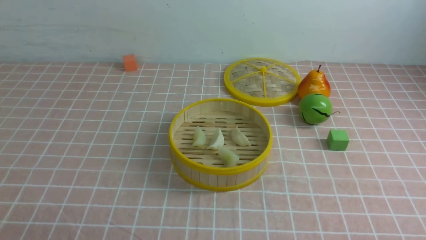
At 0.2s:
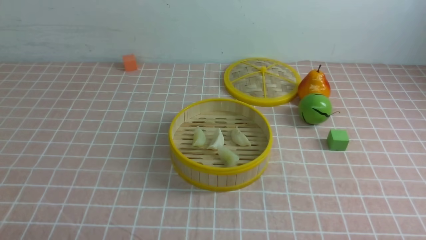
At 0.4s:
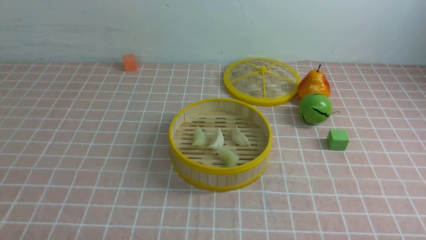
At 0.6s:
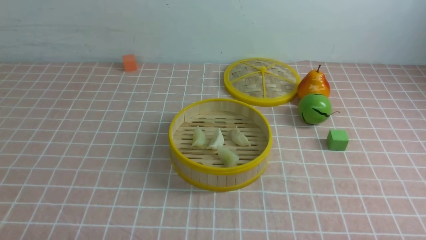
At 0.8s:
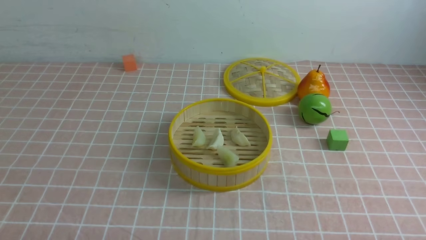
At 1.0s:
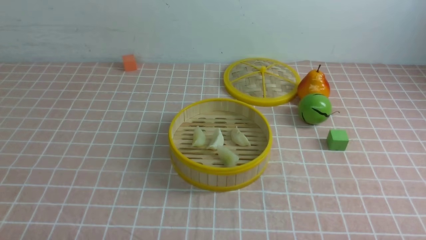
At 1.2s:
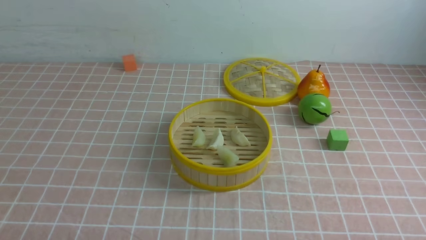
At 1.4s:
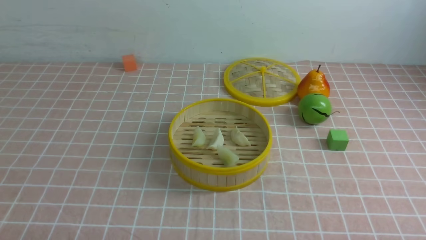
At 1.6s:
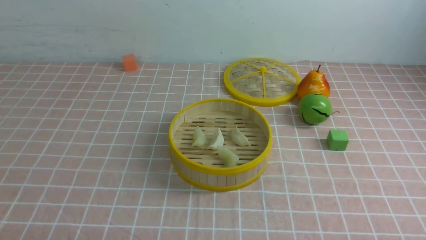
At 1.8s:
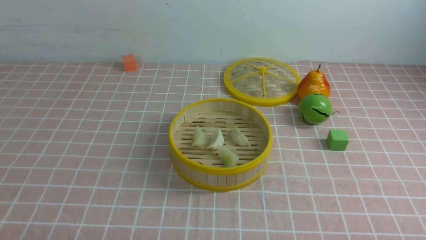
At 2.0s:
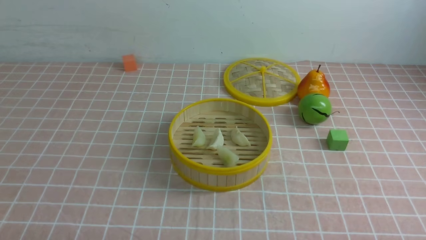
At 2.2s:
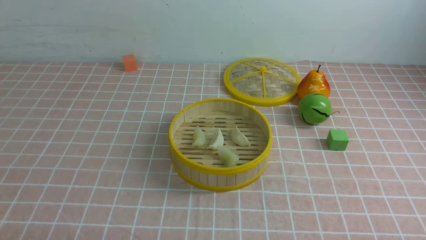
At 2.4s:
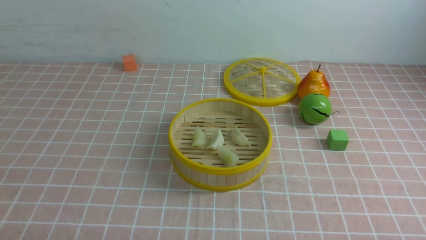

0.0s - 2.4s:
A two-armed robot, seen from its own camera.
Task of the whole recording: put the dumplings into the steamer on the table with the pink tablecloth.
1.2s - 2.4s: Neither gripper changes place.

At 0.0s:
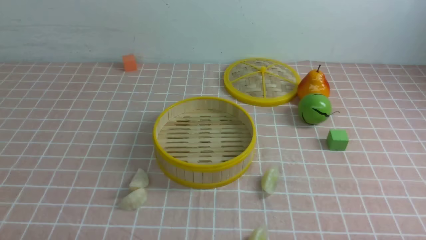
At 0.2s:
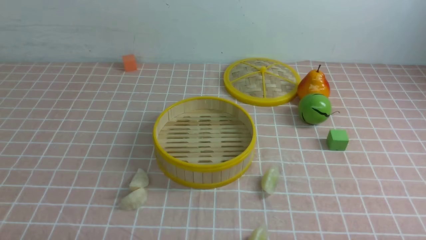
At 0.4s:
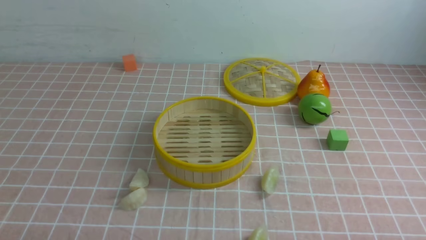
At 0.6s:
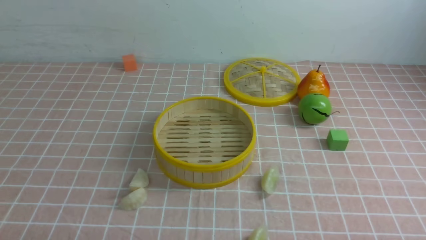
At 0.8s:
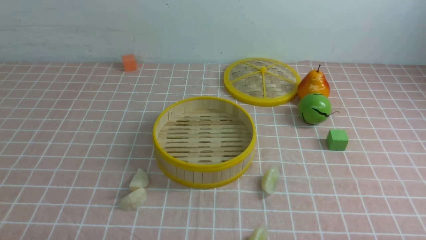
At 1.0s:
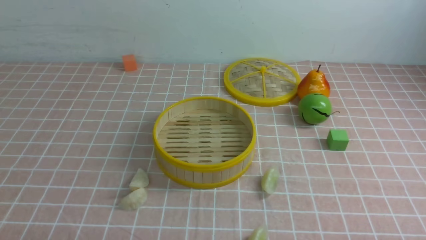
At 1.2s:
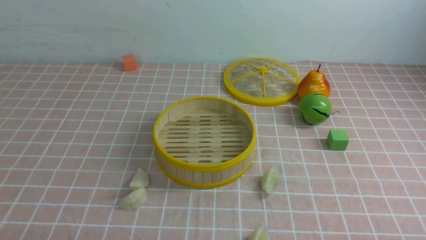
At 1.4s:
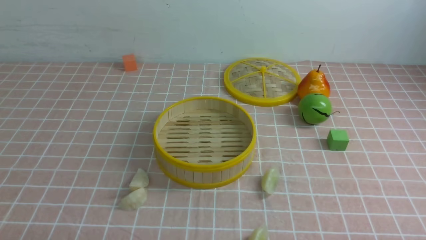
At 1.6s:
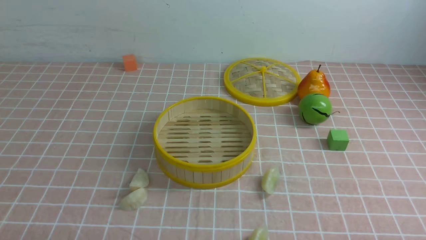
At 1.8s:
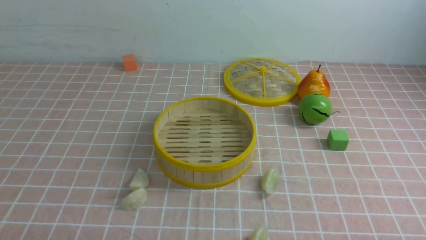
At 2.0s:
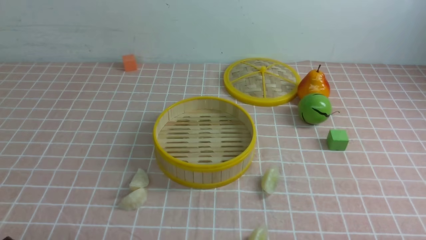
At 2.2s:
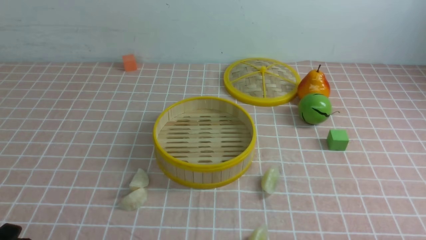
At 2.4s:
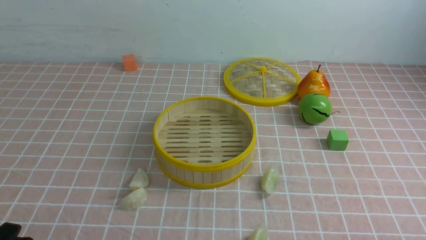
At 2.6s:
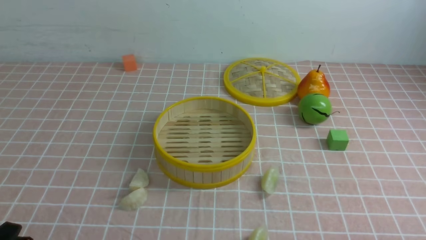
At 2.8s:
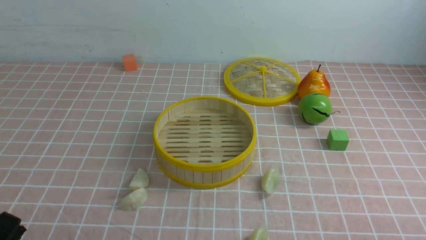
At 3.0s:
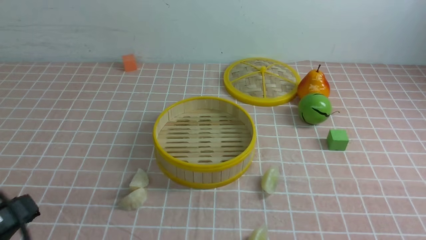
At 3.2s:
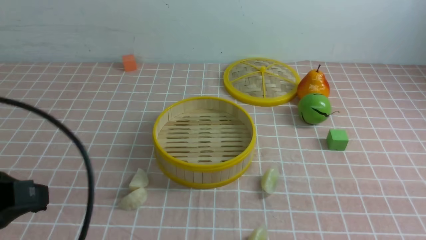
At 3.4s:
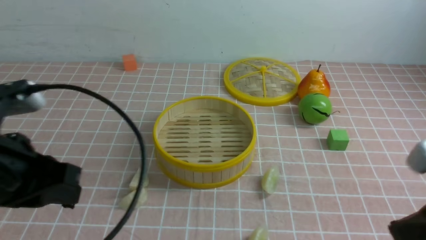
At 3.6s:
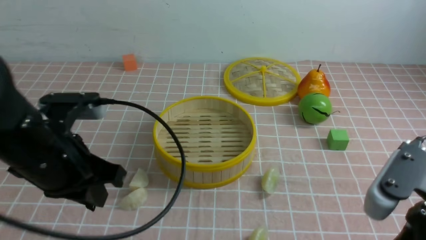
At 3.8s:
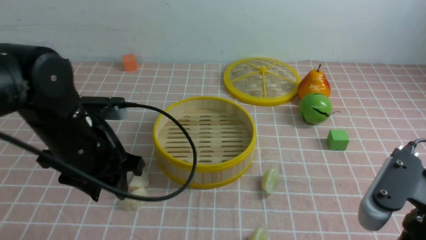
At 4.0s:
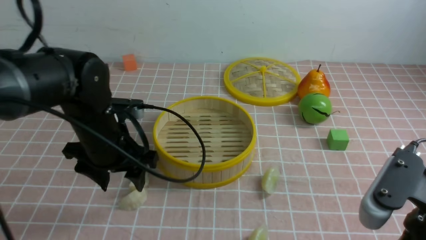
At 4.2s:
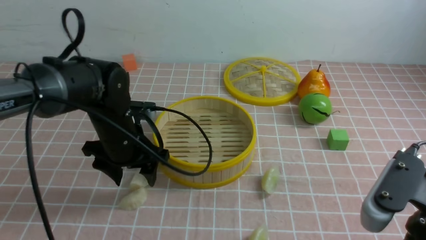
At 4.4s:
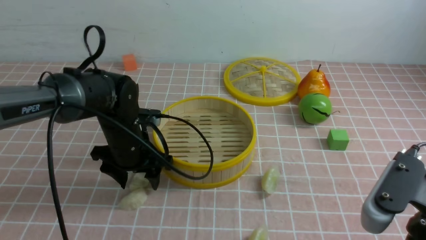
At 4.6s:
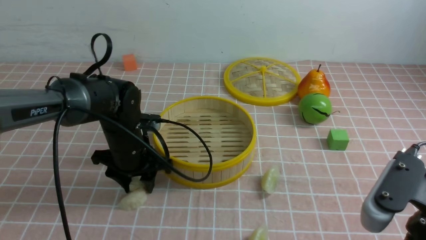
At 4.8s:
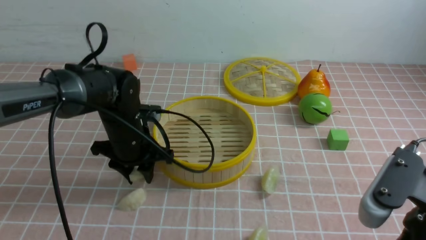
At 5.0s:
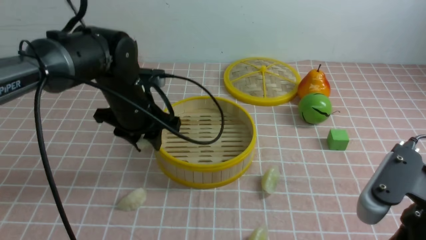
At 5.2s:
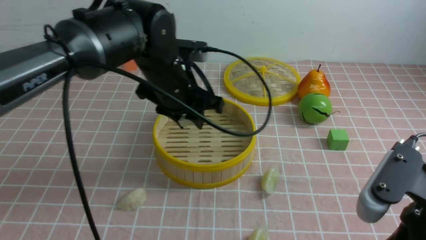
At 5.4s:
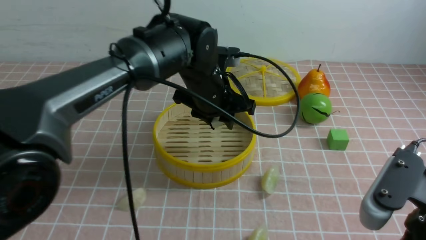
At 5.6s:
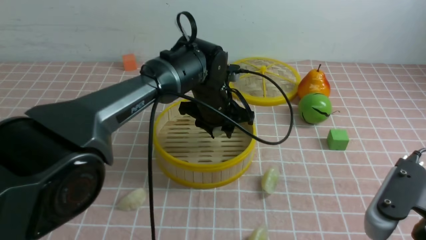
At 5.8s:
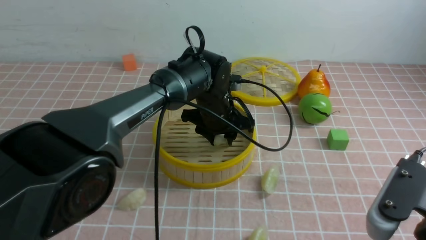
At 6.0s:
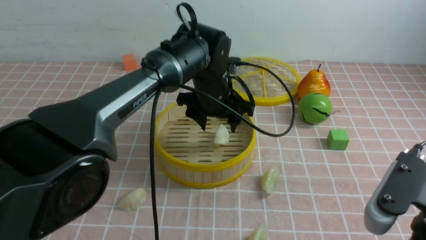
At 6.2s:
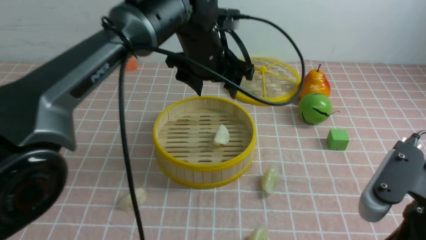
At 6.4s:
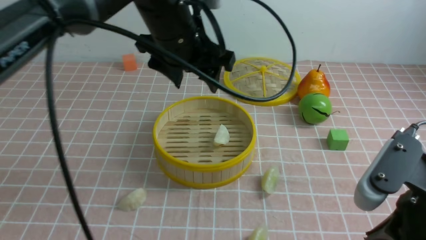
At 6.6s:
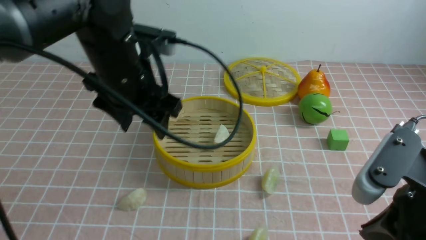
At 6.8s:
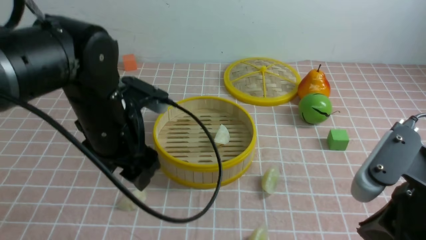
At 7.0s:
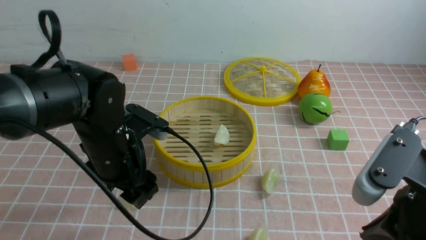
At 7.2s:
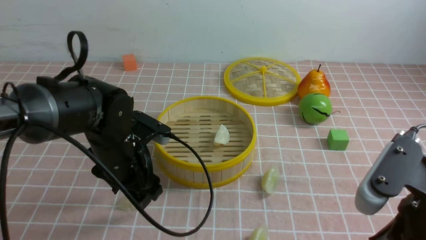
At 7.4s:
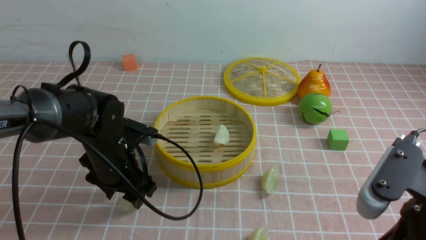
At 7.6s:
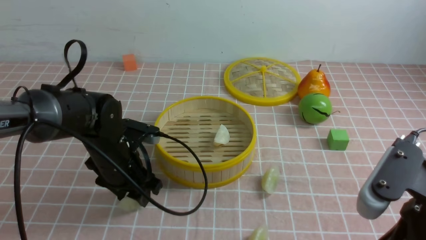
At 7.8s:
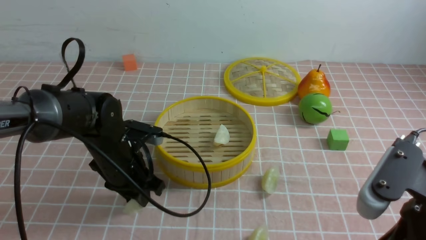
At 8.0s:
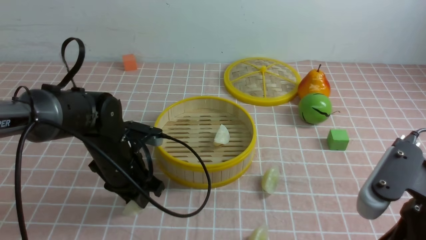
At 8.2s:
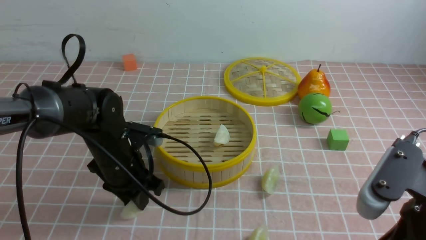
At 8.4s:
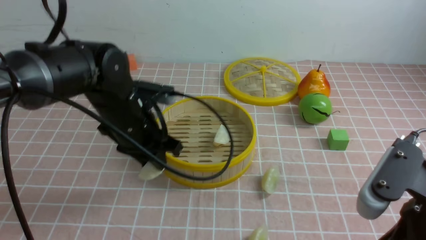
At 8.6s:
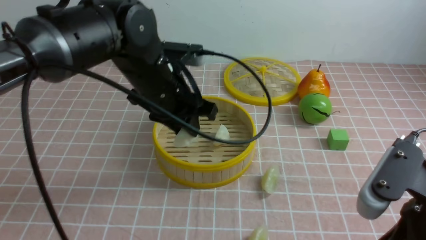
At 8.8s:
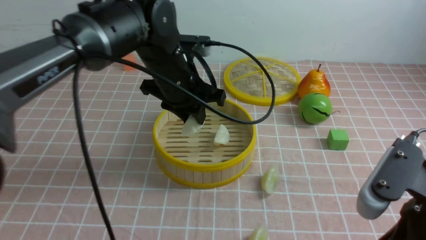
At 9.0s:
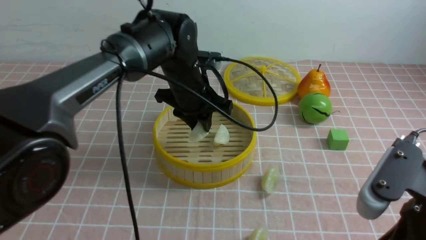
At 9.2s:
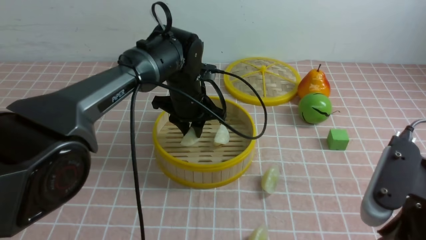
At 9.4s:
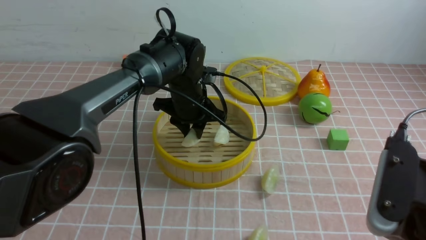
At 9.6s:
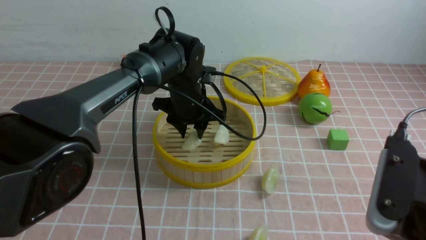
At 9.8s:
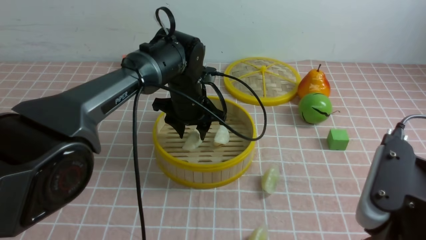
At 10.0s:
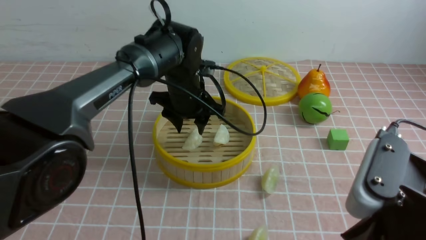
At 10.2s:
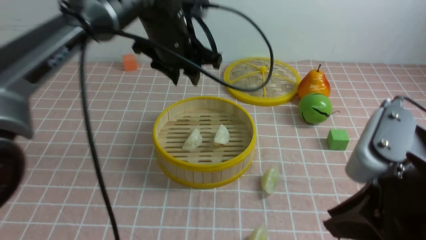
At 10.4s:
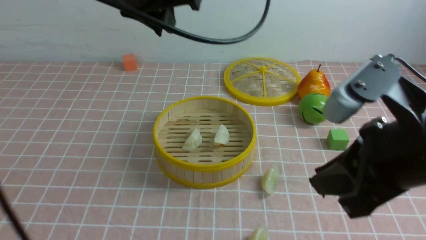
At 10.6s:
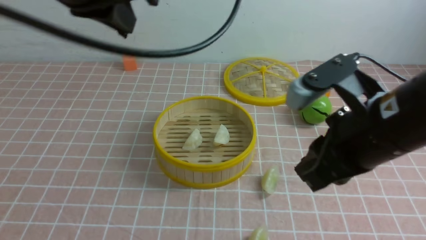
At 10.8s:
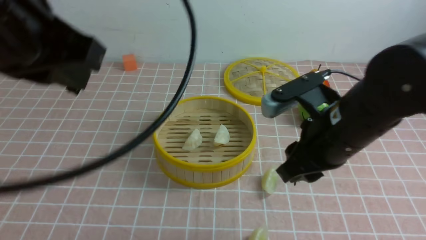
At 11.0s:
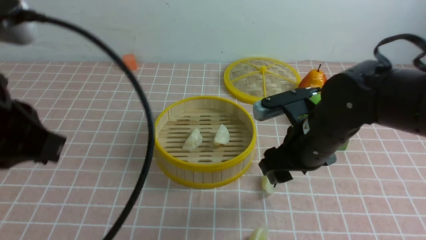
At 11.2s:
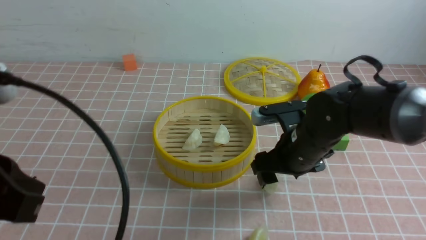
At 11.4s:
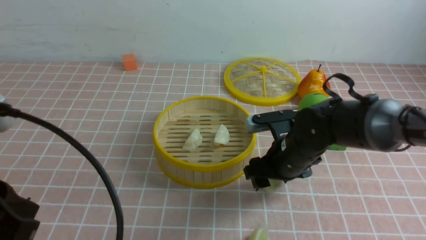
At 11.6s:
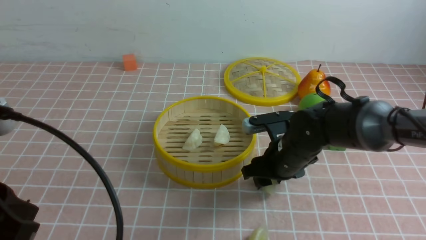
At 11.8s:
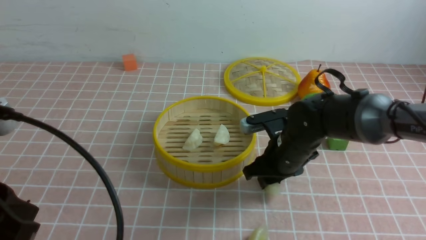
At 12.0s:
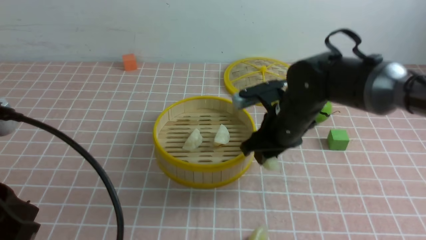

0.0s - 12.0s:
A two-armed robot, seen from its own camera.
Task of the whole recording: put the dumplings into the steamer on the table with the pink tablecloth.
Step, 0.0s - 4.8s: use the left arm to grab a dumpling.
Step, 5.0s - 5.8s: use the left arm to put the dumpling into the steamer.
Step, 6.0s - 8.2s: use the left arm to grab a dumpling.
Step, 8.4s - 10.0s: use the left arm to put the dumpling into the steamer.
Step, 10.2s - 11.8s: use the right arm to grab a dumpling.
0.0s - 1.6s: The two grippers keep their place.
1.6s - 3.0s: The left gripper heads upward, covering roughly 10 cm, and closes its fingers.
3.0s - 4.4s: The right gripper heads to the left and forward, covering about 10 cm. Meanwhile the left gripper moves forward, about 30 cm, and opens its fingers.
4.4s - 6.0s: The left gripper goes roughly 15 cm to the right, upward and forward, and closes, then opens again.
6.0s - 7.6s: The left gripper goes roughly 20 cm to the left, downward and backward.
7.6s - 9.0s: The left gripper moves to the right, forward and upward, roughly 15 cm.
9.0s - 10.4s: The left gripper goes about 20 cm upward and backward. The right gripper is displaced upward by about 5 cm.
10.4s - 12.0s: The right gripper moves forward, downward and to the left, roughly 25 cm, and opens, then closes once more; the left gripper heads backward, to the left and downward, covering about 25 cm.

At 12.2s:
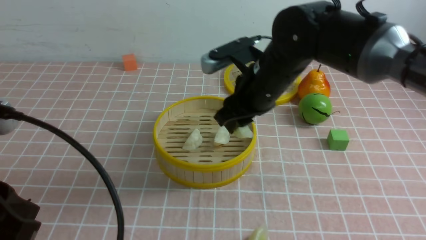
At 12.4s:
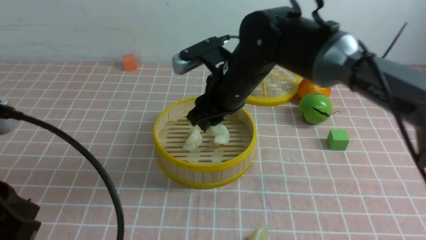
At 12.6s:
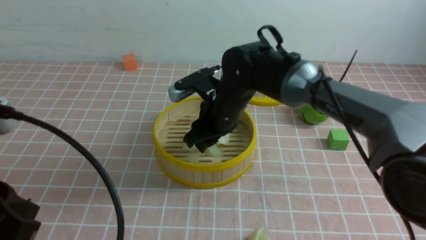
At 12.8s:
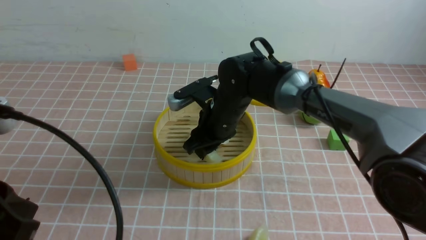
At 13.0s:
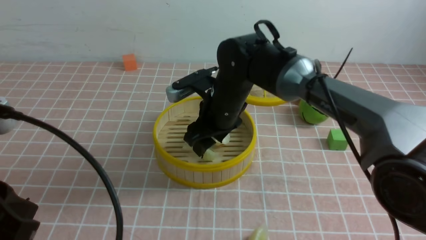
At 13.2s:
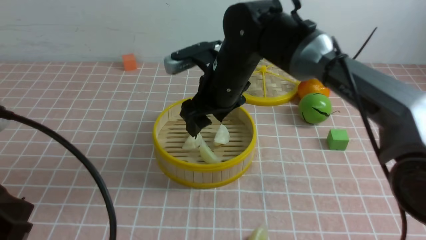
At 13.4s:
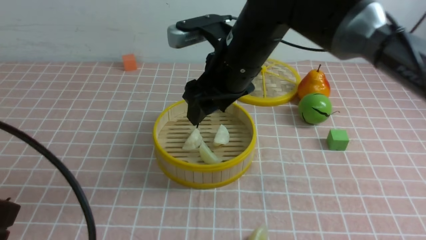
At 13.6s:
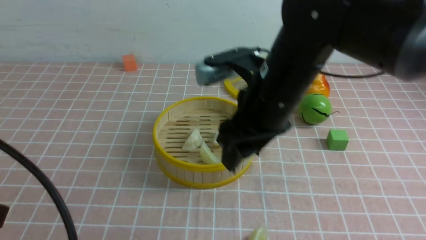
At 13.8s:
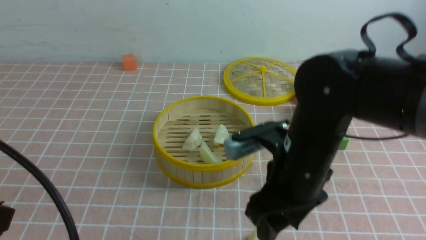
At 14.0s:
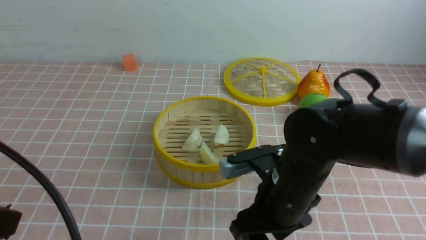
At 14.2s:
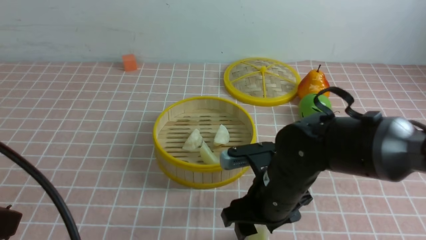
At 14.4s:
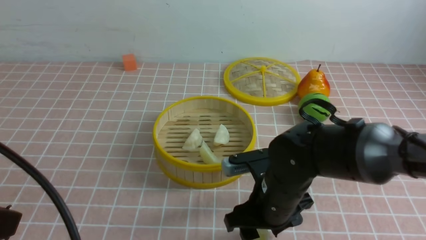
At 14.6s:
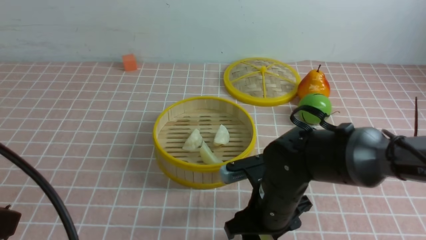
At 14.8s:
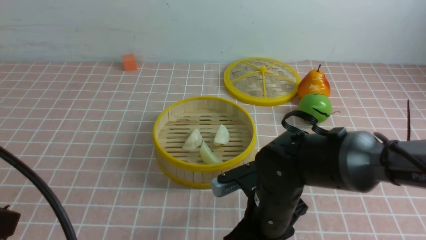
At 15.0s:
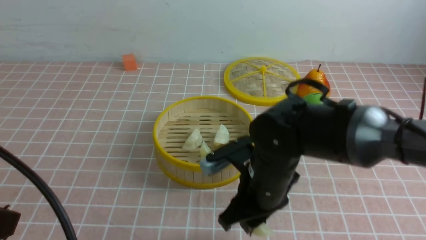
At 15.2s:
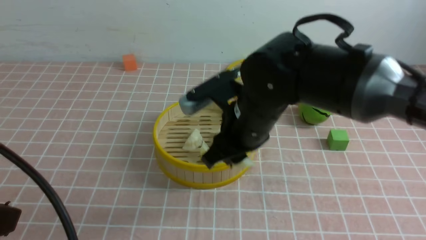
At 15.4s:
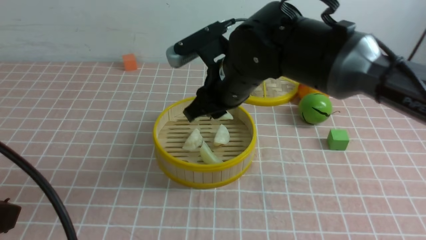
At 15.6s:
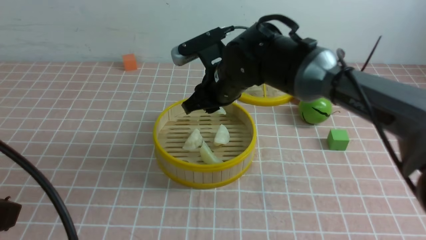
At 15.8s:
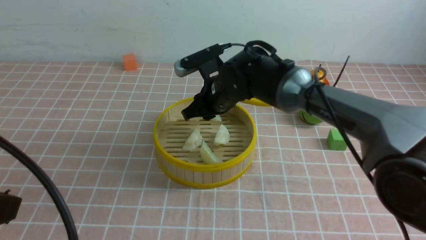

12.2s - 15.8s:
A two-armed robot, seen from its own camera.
Task of the whole recording: put the dumplings into the steamer on the table with the pink tablecloth.
Step, 12.2s - 13.0s: use the right arm to put the dumpling into the steamer.
Step, 13.2s - 14.8s: use the right arm to grab a dumpling.
12.2s - 14.0s: The right gripper heads backward and downward, covering about 15 cm, and opens.
14.0s - 15.8s: The right gripper goes some 20 cm forward, and closes its fingers.
